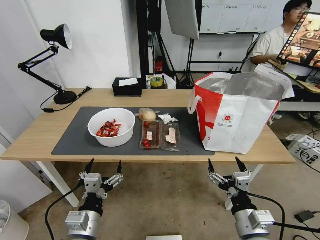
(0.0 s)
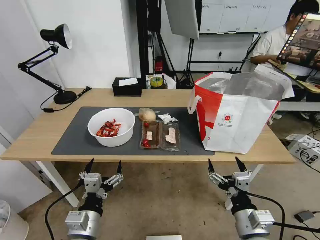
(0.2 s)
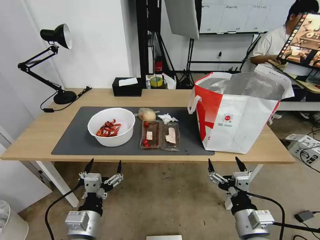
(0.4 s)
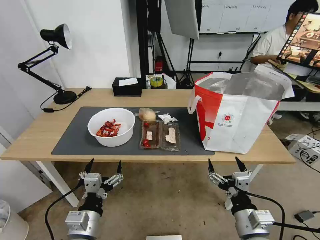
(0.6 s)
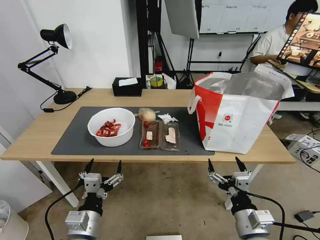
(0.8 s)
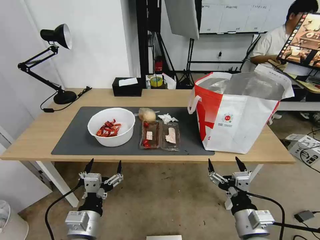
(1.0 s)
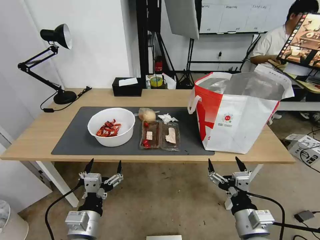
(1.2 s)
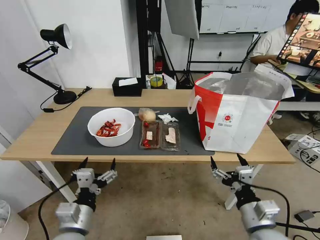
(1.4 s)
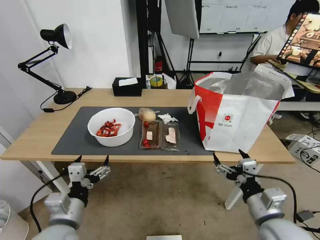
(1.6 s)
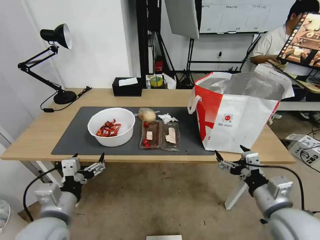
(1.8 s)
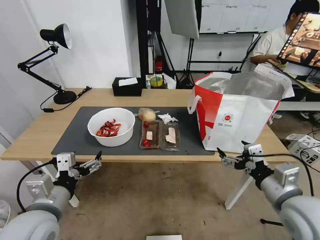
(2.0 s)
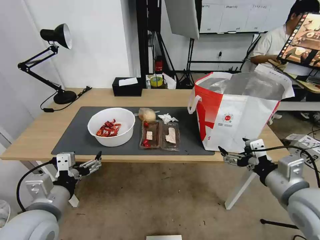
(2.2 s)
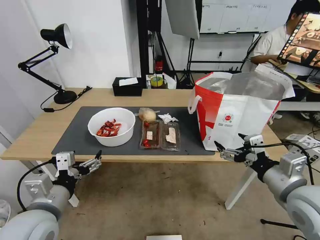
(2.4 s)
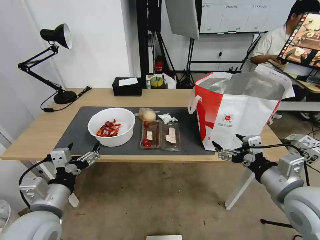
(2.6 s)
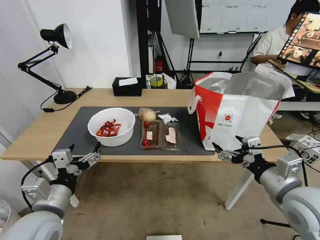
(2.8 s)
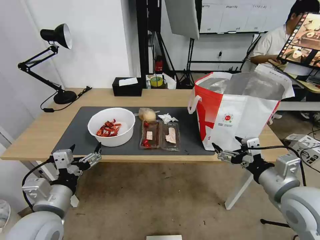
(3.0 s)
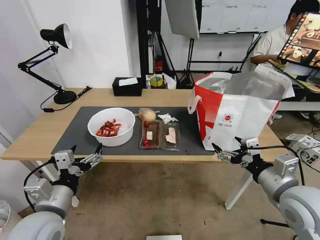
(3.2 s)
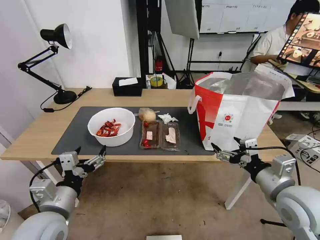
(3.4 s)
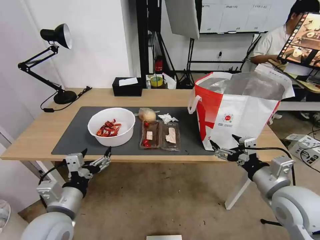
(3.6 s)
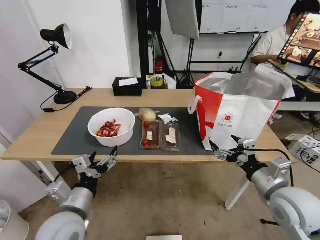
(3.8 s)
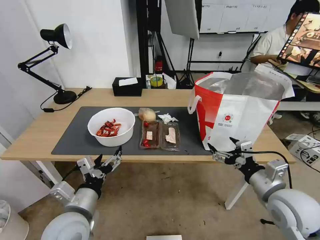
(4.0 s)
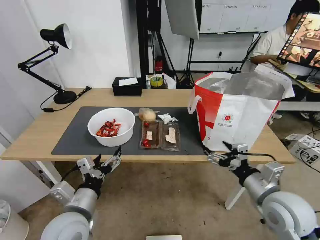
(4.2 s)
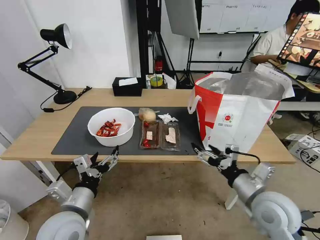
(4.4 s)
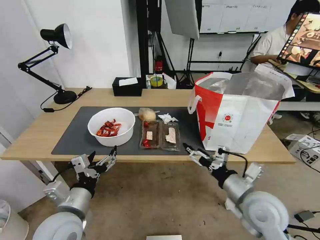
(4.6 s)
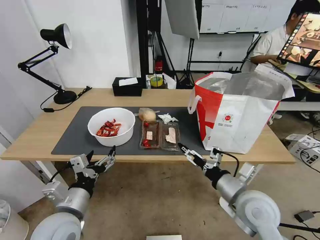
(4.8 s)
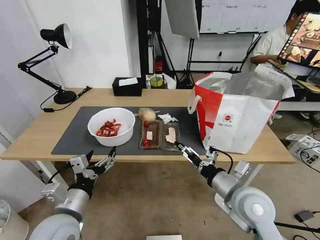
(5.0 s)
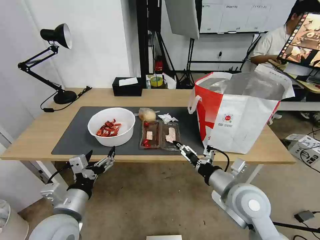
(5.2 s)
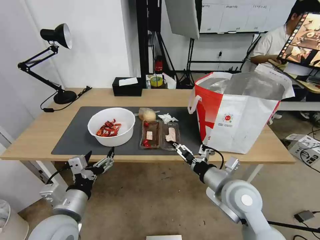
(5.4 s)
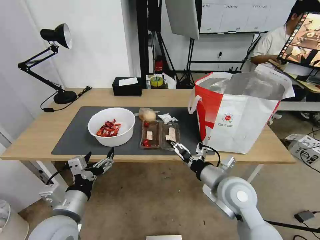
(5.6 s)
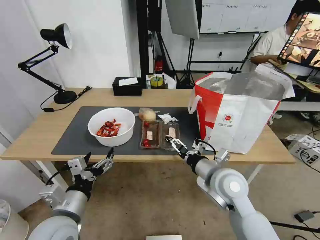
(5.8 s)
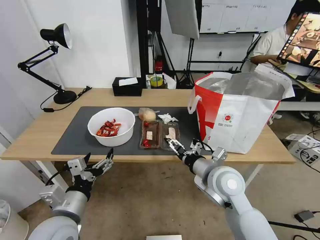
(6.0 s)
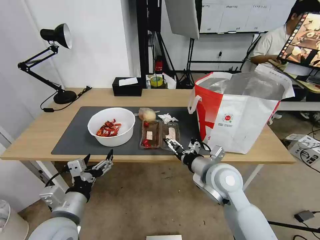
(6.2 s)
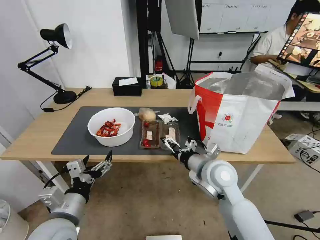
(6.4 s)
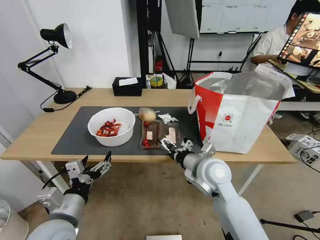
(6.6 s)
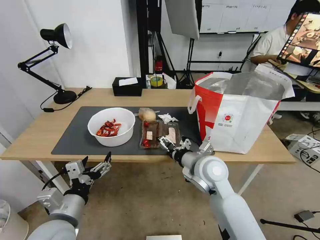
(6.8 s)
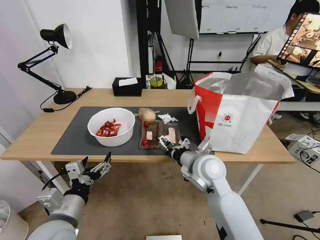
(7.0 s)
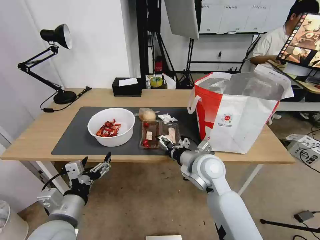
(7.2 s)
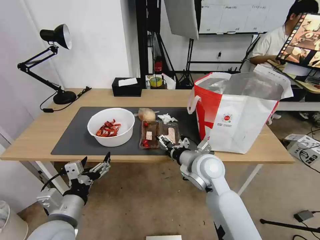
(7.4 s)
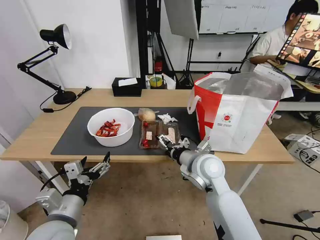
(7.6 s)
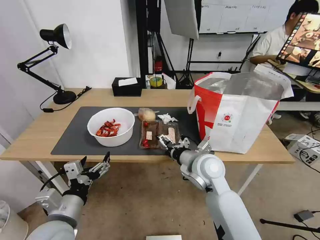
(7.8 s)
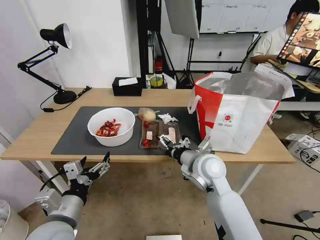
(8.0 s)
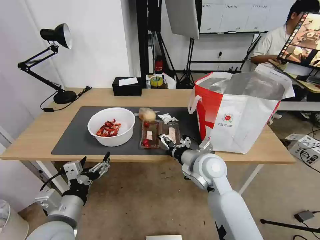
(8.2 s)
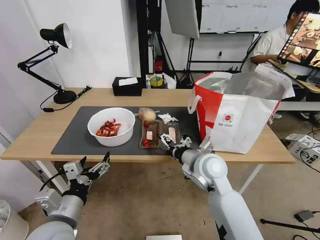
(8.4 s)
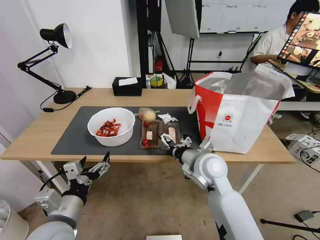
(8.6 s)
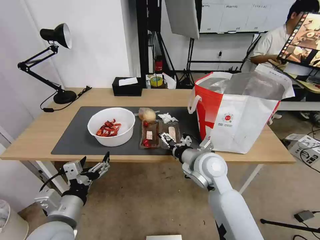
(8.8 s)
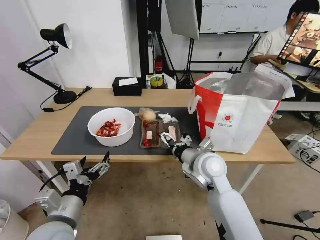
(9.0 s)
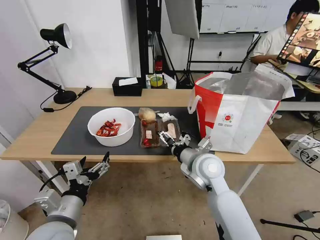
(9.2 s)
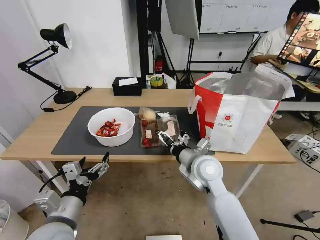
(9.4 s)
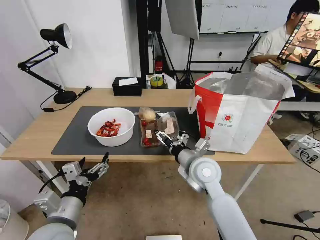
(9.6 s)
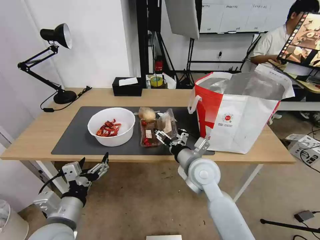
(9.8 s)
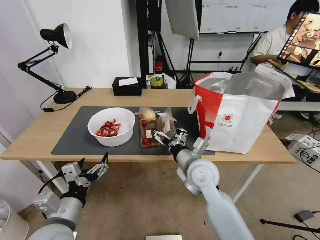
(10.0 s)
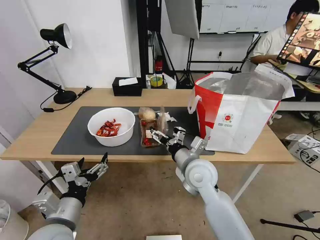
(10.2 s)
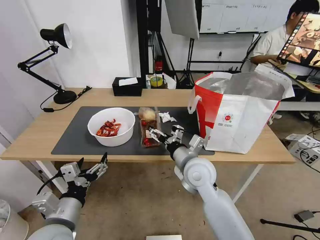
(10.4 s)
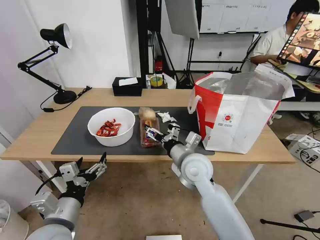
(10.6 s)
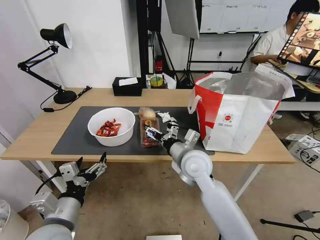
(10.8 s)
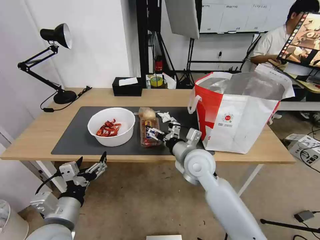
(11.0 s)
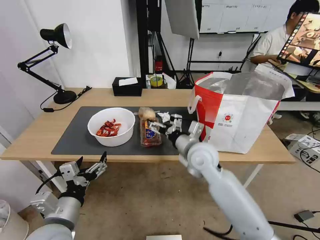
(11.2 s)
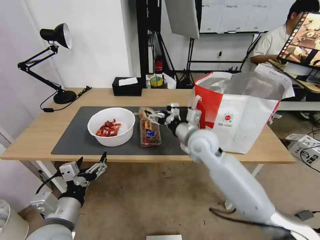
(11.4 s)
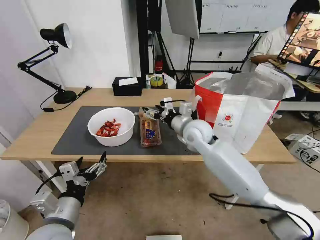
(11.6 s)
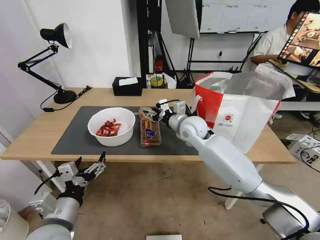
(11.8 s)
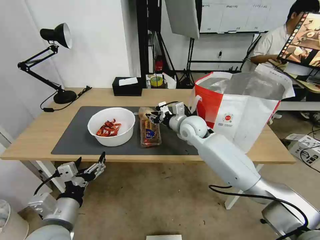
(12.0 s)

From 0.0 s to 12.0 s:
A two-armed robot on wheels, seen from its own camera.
Task of the whole recording: Pick up the trash from the table and place it into the takeout bag.
From 1.6 s to 3.0 s: The left gripper ends up roughly 5 cm from where it was. The right gripper goes roughly 10 cm upward.
From 3.0 s to 4.4 s: The left gripper changes place by approximately 5 cm. The right gripper moves downward, about 5 cm.
From 4.4 s to 6.0 s: The right gripper moves to the left and forward, about 10 cm.
From 6.0 s to 7.6 s: The right gripper shifts by approximately 5 cm.
From 7.6 s to 9.0 s: The two grippers keep their place.
From 10.4 s to 12.0 s: The right gripper goes some 15 cm forward, and closes.

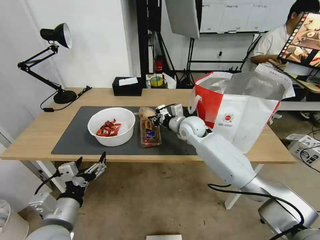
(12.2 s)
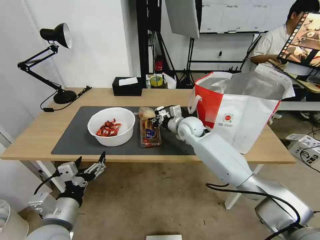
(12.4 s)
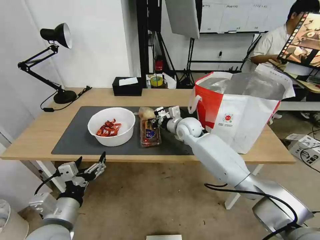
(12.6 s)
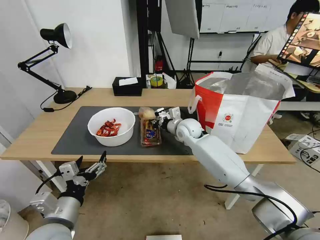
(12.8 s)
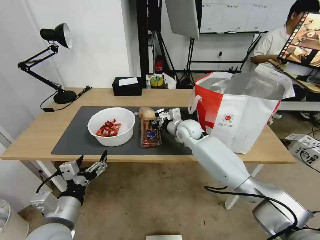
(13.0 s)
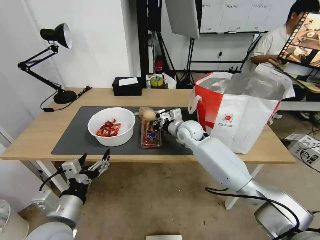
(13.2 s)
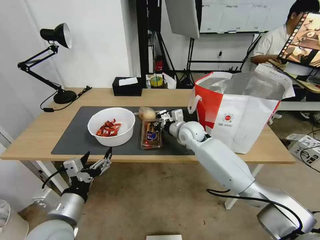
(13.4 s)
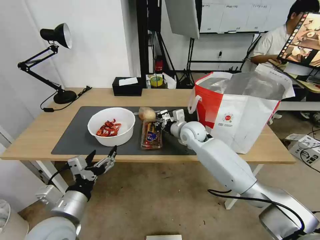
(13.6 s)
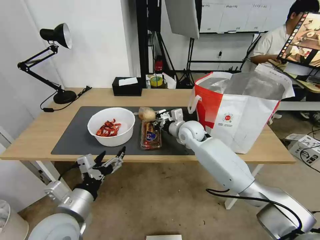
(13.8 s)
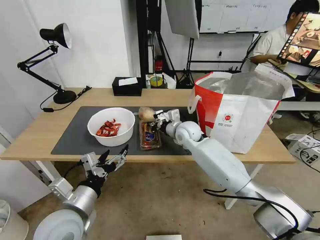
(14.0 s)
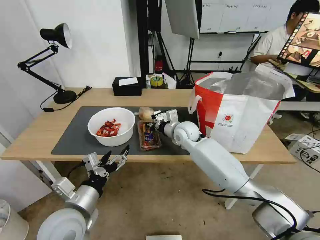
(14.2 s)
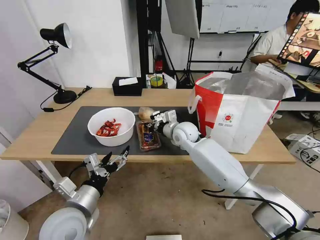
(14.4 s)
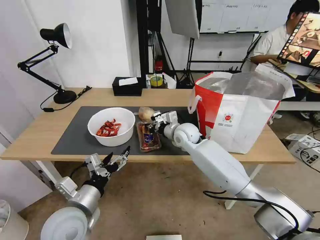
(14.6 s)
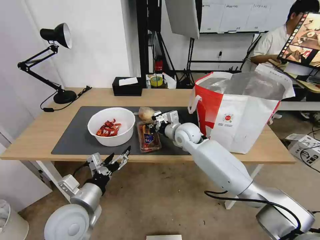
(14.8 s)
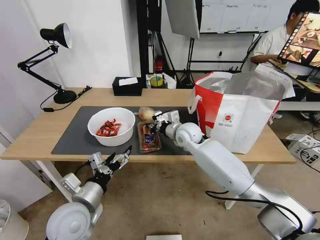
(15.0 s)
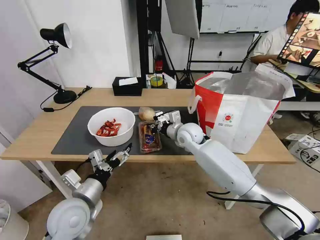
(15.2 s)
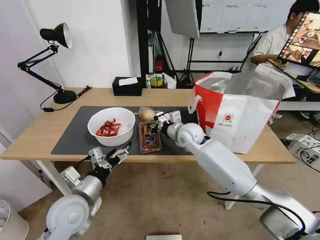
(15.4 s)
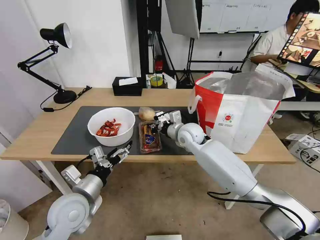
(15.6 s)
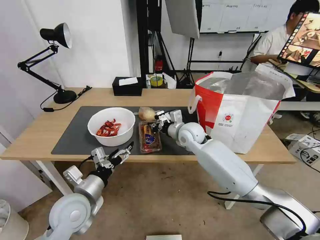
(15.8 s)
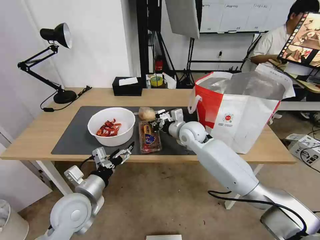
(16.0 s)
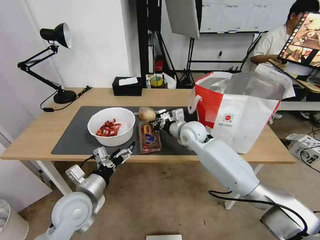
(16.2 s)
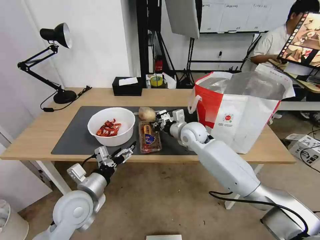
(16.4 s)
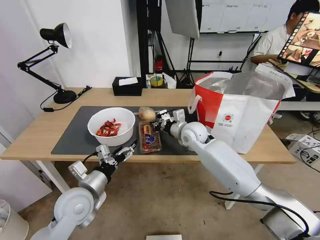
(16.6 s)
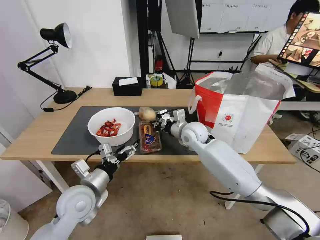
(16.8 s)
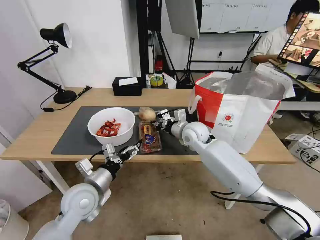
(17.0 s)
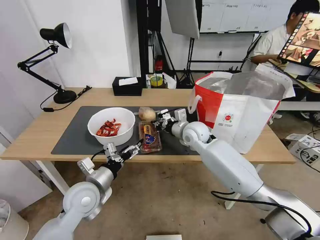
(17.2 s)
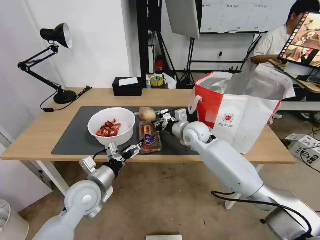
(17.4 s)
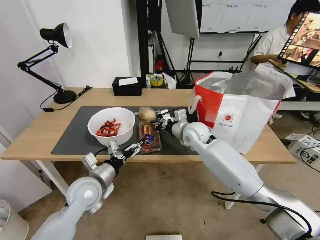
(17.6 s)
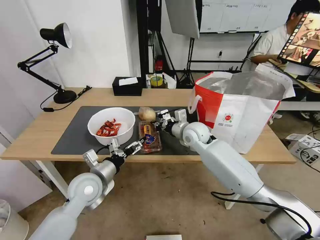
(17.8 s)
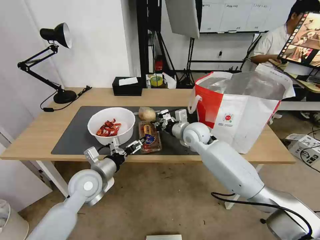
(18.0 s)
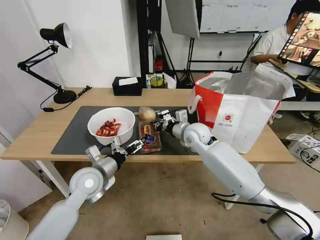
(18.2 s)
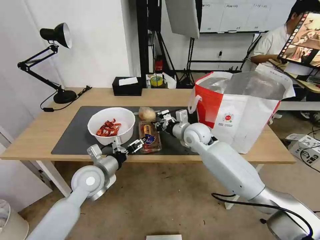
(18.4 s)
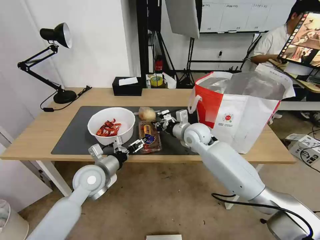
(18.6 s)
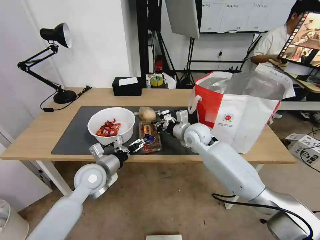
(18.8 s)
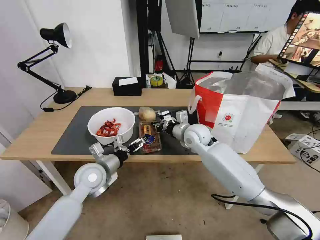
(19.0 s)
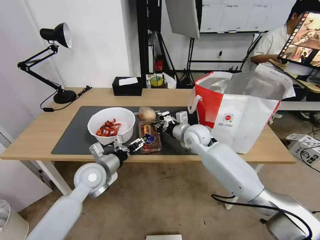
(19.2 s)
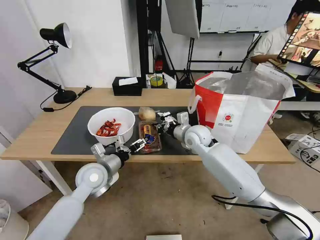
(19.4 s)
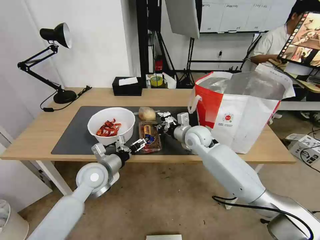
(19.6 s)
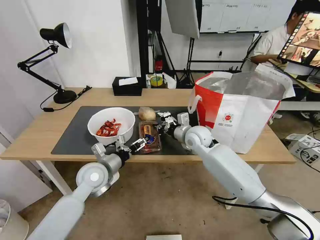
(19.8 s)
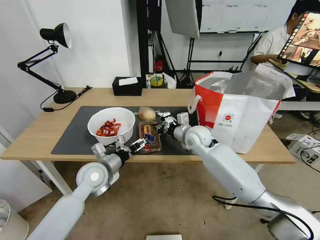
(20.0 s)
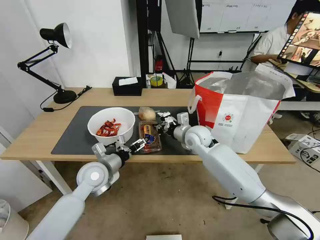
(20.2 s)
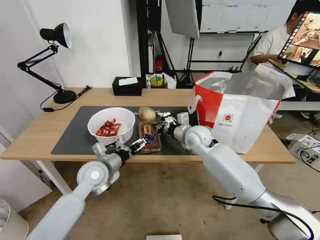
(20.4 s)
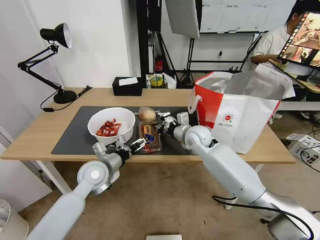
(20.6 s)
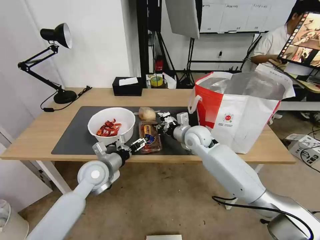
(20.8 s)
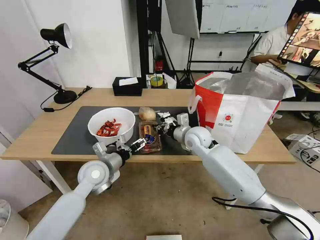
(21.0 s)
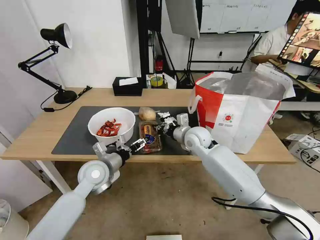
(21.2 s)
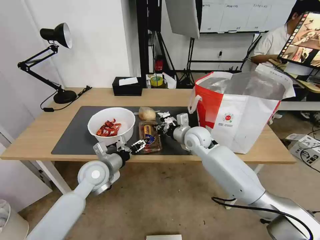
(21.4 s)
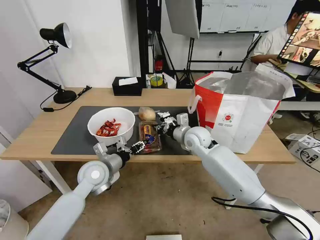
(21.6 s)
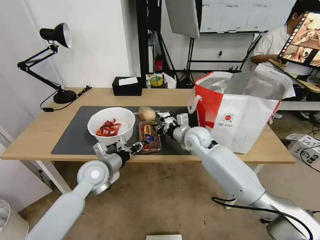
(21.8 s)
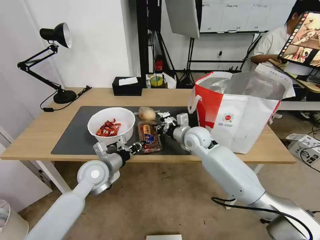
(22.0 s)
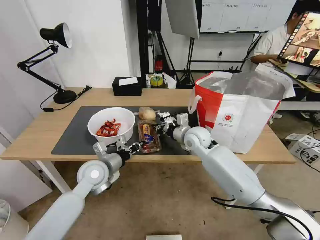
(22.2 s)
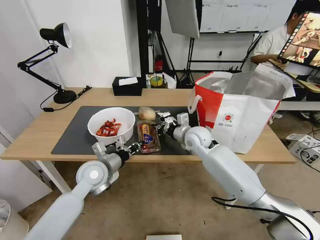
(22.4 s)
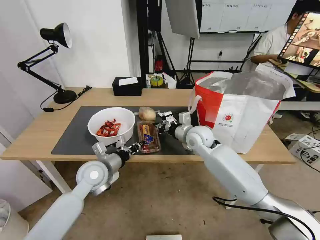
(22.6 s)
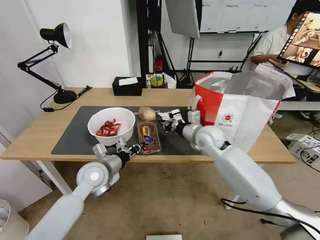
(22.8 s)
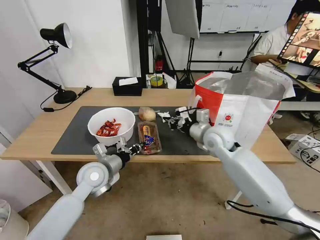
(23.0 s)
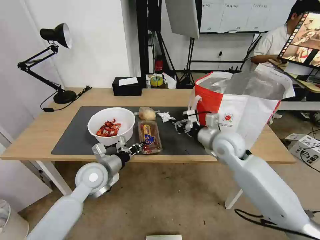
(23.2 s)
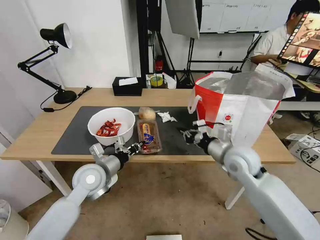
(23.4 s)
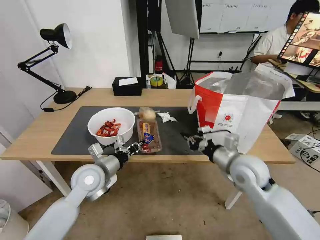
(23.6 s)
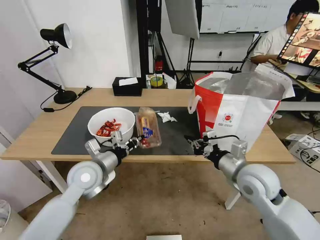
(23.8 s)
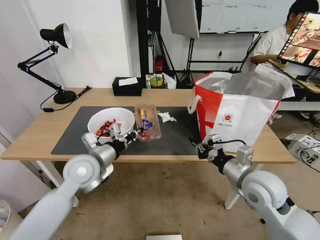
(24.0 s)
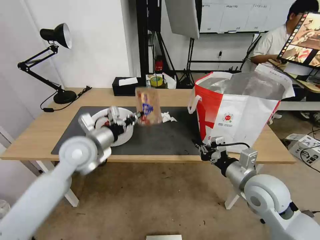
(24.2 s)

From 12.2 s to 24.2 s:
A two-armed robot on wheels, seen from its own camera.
Task of the whole recording: Pick up the trash from the table and place it into the takeout bag.
From 12.2 s to 13.8 s: There are only small adjustments of the grippers.
From 13.8 s to 15.2 s: The left gripper moves some 5 cm.
From 15.2 s to 16.6 s: The grippers move only a little.
From 16.6 s to 18.2 s: The left gripper moves forward, some 5 cm.
From 18.2 s to 19.8 s: The grippers make only small movements.
From 19.8 s to 21.2 s: The two grippers keep their place.
From 21.2 s to 22.6 s: The left gripper closes.
From 22.6 s to 24.2 s: The right gripper heads backward and to the right, covering some 25 cm. The left gripper moves upward, approximately 10 cm.
